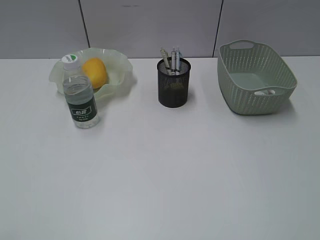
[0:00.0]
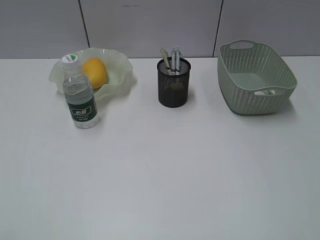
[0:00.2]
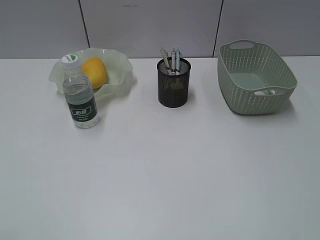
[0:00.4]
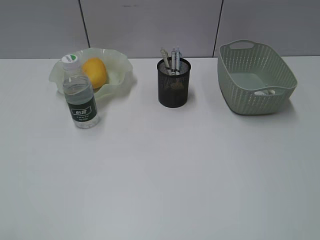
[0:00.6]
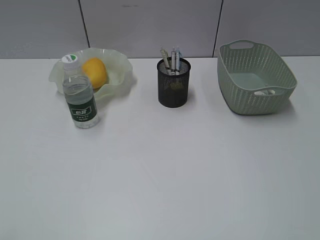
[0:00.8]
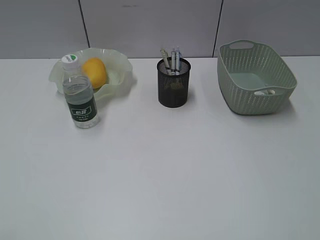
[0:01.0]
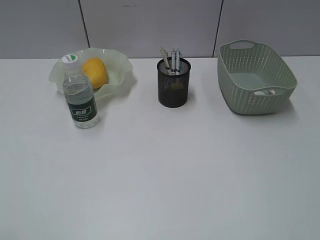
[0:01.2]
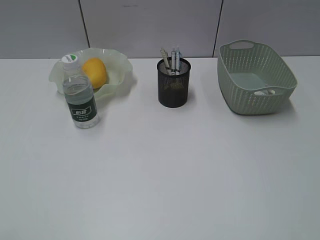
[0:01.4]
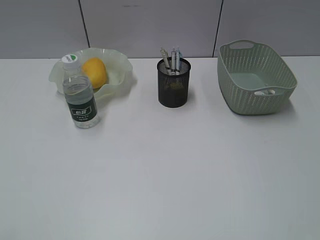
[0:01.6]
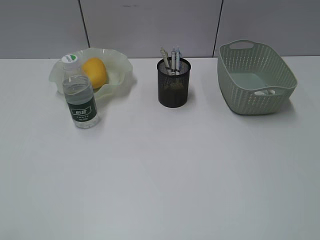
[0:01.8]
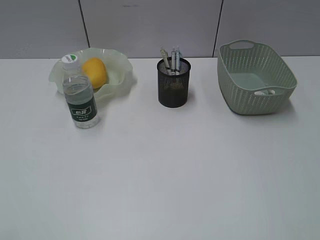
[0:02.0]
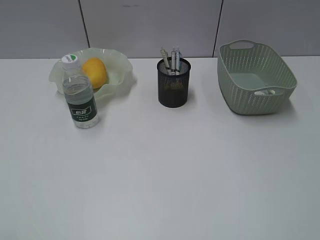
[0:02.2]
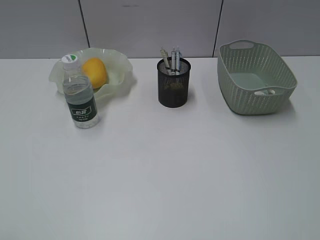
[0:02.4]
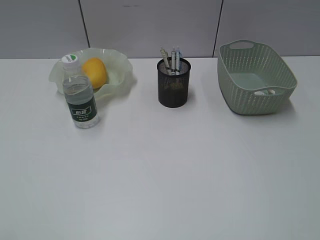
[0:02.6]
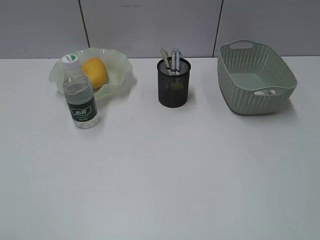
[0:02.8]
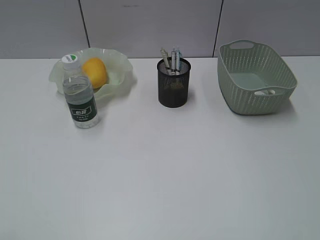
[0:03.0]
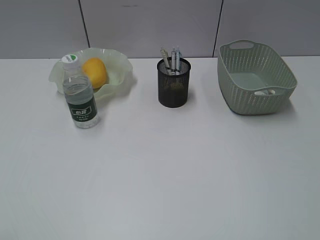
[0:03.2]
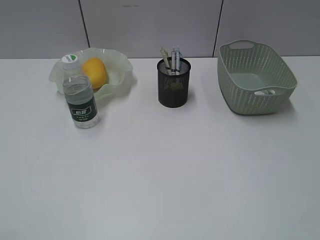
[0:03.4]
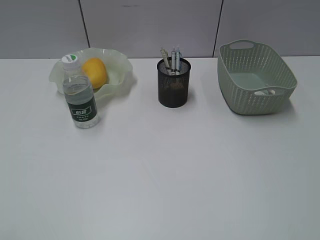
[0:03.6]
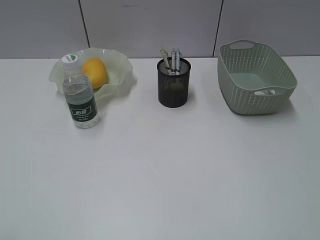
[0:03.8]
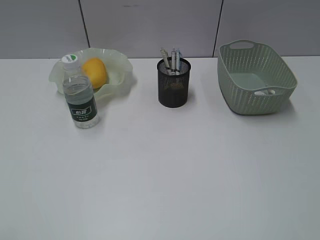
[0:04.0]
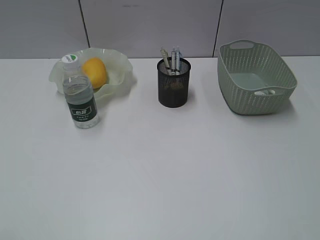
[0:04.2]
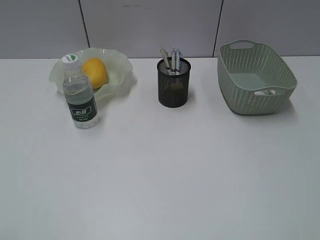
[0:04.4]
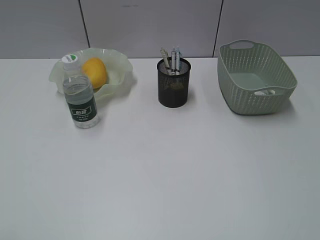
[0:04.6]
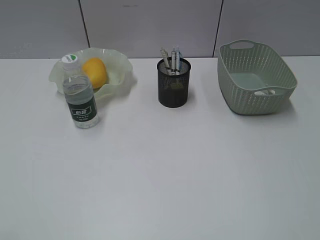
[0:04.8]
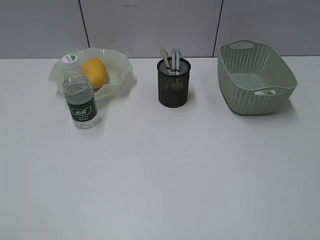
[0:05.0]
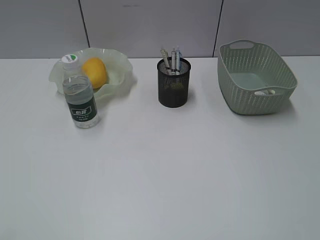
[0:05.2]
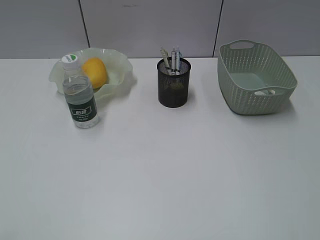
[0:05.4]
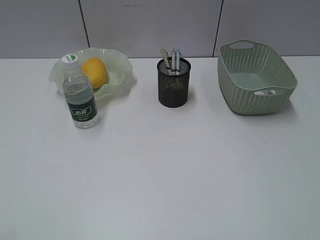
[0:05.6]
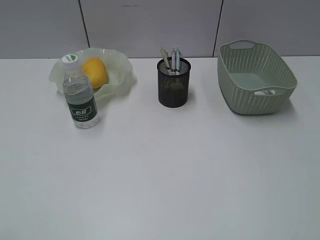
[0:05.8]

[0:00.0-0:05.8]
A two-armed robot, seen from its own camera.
0.0 to 5.8 s: Both grippers stay put.

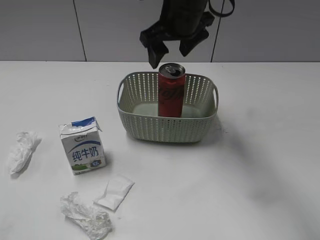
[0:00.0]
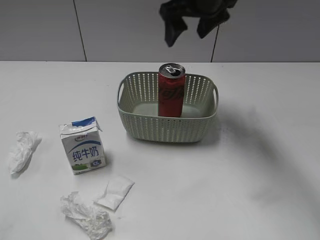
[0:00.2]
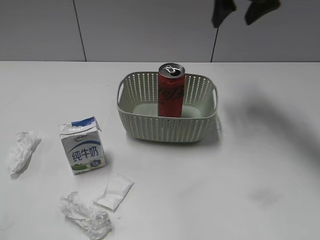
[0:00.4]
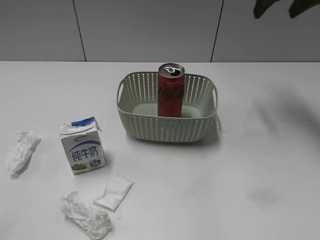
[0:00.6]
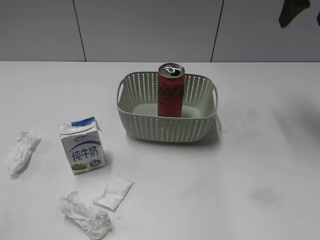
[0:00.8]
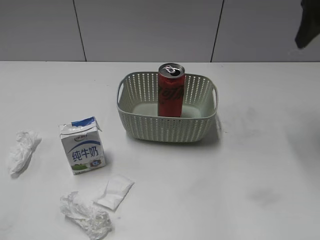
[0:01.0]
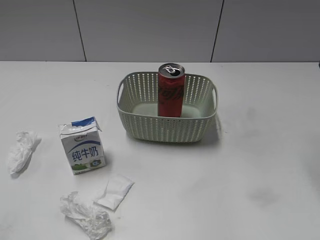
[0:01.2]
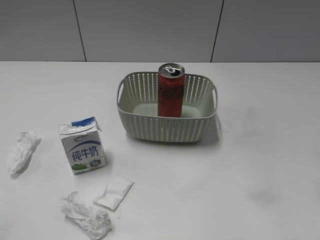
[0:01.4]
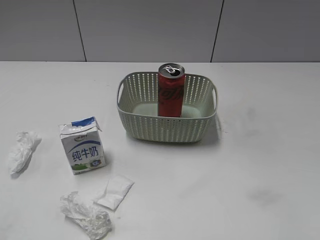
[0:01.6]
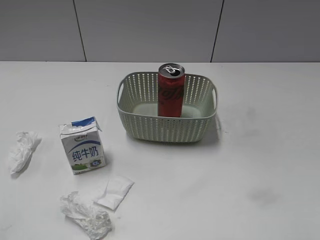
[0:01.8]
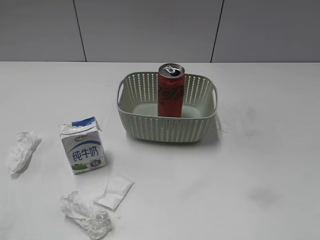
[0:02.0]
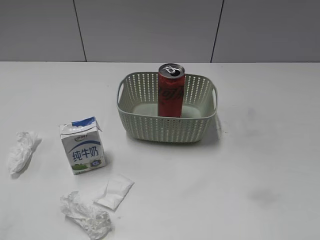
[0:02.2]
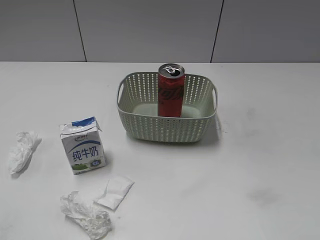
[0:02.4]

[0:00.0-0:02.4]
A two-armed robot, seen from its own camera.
0.0 to 1.2 s: The right gripper goes approximately 25 cm to the right and backward.

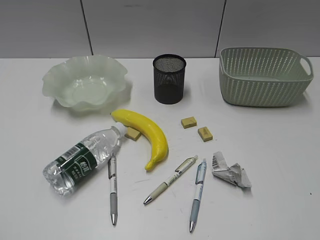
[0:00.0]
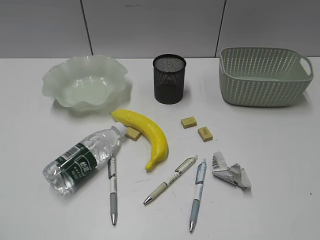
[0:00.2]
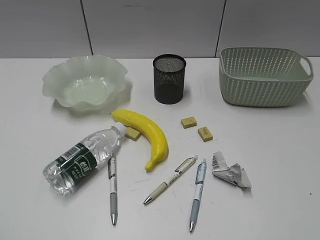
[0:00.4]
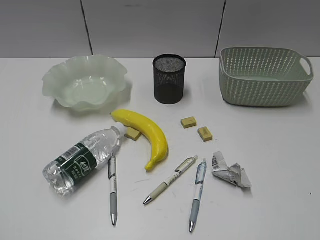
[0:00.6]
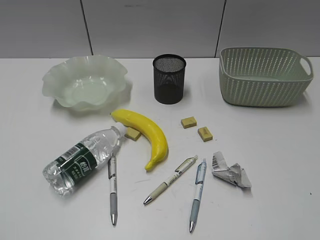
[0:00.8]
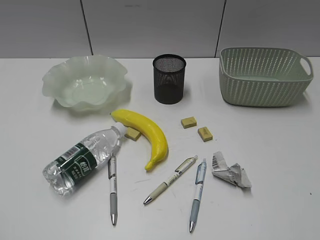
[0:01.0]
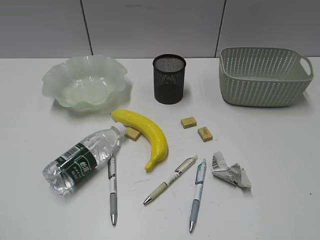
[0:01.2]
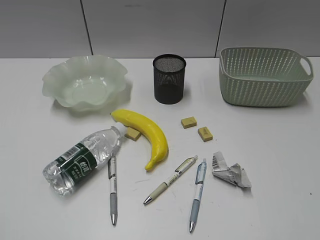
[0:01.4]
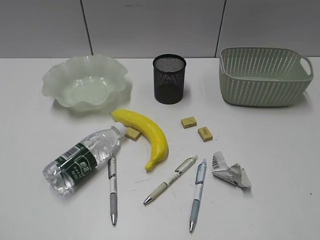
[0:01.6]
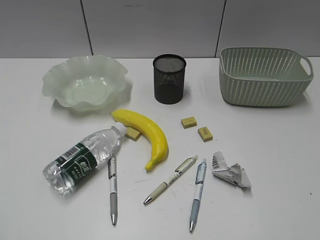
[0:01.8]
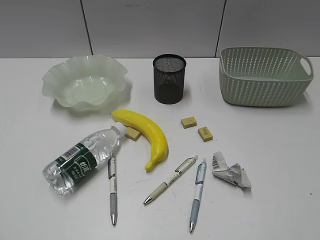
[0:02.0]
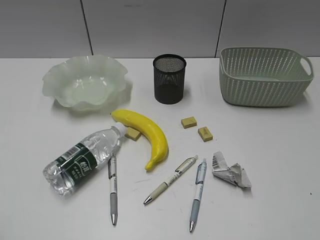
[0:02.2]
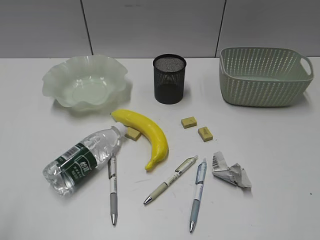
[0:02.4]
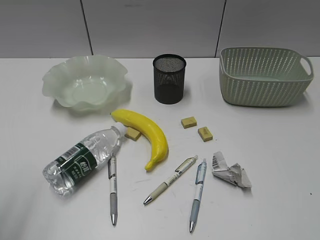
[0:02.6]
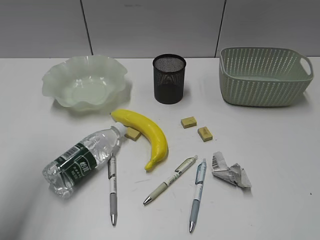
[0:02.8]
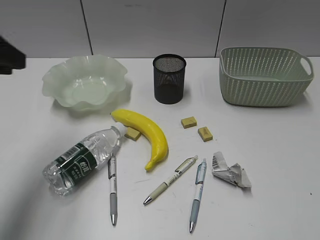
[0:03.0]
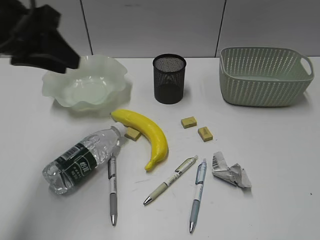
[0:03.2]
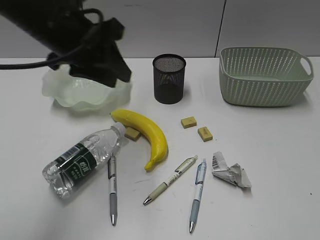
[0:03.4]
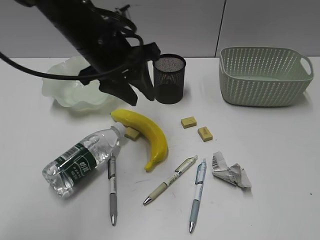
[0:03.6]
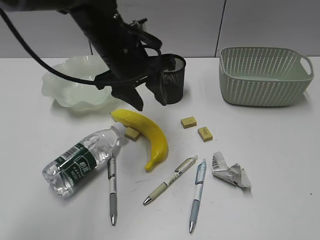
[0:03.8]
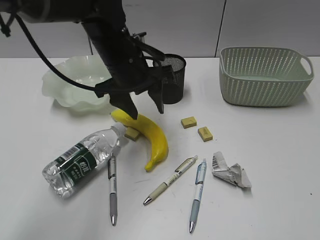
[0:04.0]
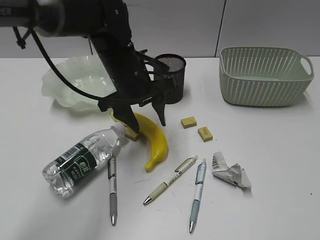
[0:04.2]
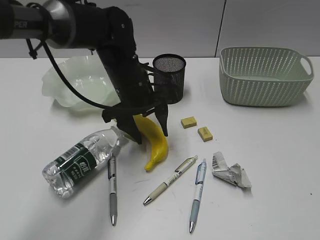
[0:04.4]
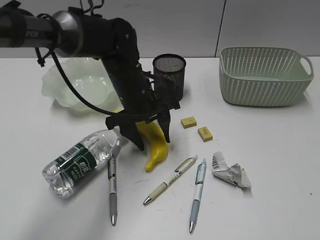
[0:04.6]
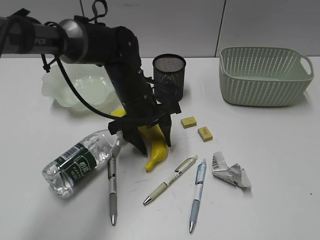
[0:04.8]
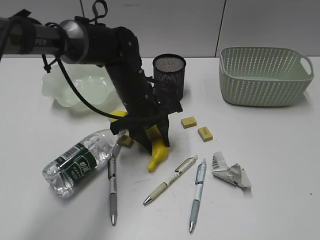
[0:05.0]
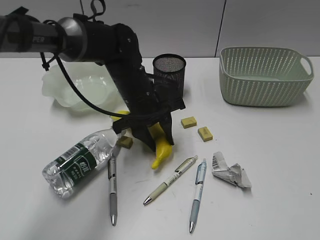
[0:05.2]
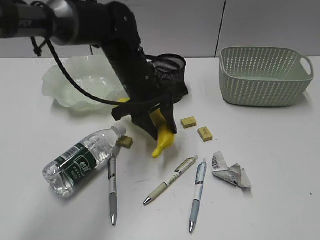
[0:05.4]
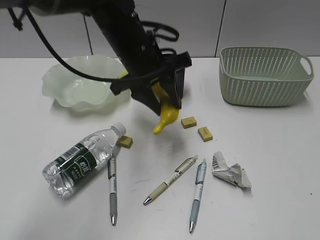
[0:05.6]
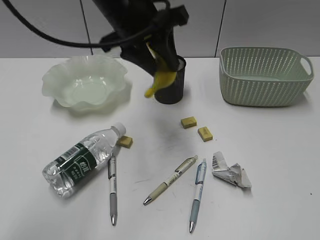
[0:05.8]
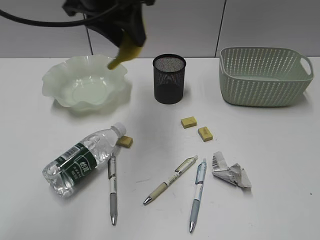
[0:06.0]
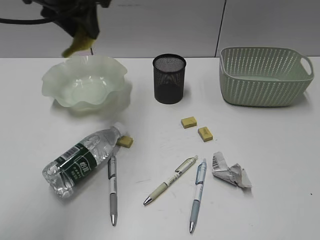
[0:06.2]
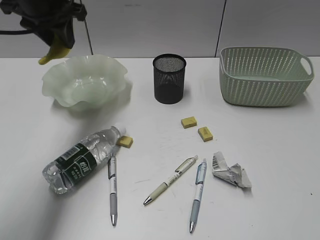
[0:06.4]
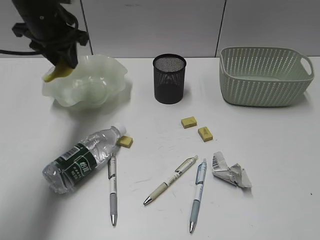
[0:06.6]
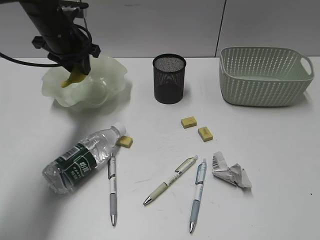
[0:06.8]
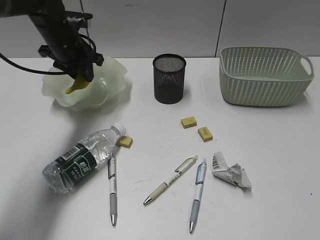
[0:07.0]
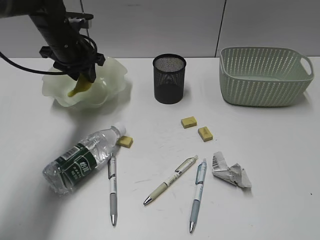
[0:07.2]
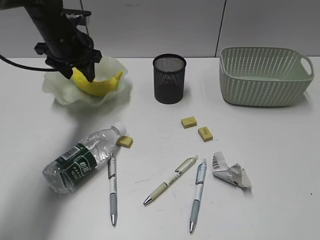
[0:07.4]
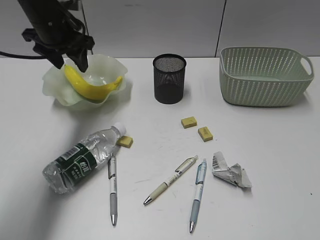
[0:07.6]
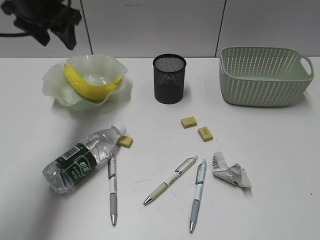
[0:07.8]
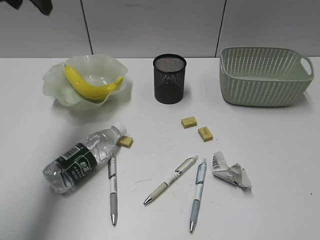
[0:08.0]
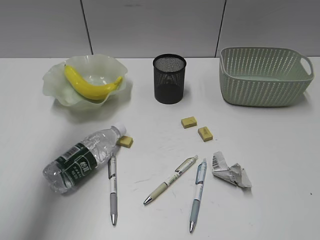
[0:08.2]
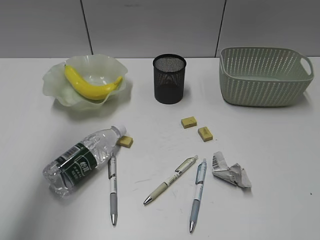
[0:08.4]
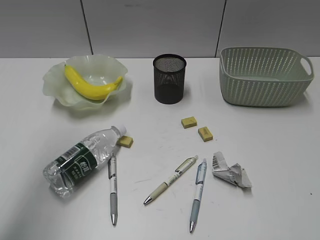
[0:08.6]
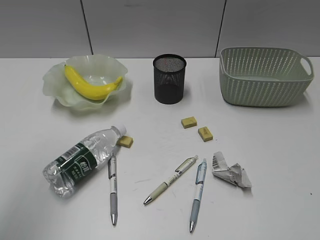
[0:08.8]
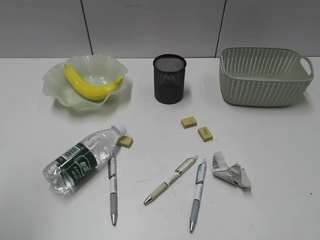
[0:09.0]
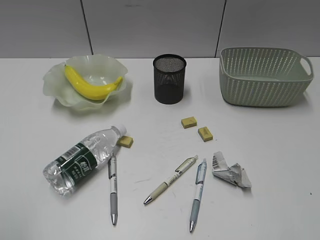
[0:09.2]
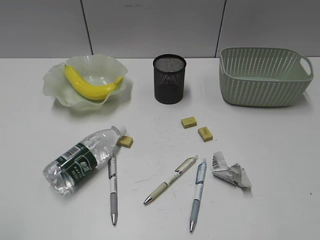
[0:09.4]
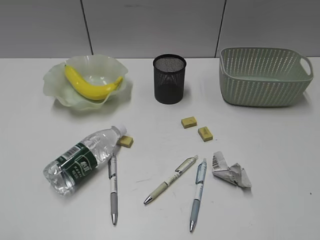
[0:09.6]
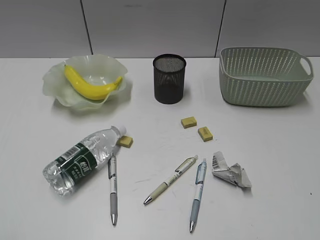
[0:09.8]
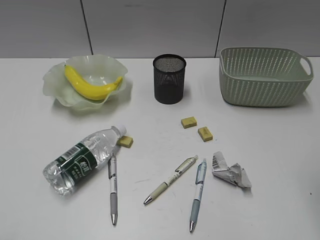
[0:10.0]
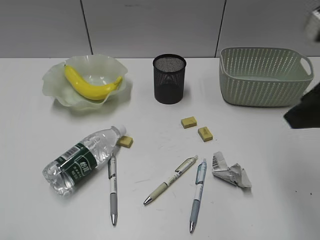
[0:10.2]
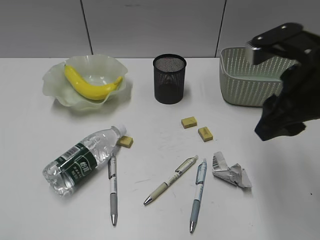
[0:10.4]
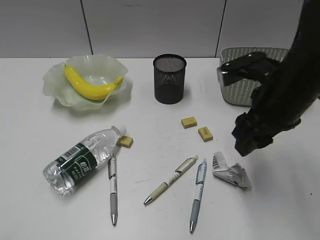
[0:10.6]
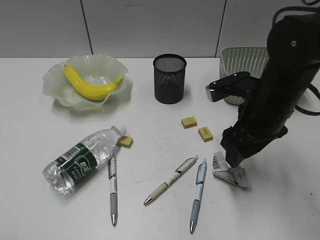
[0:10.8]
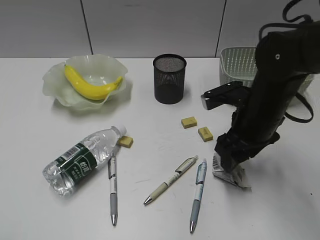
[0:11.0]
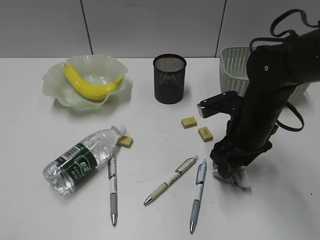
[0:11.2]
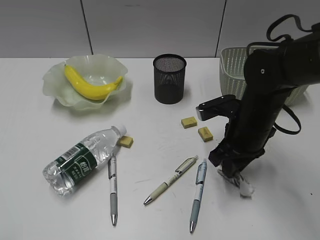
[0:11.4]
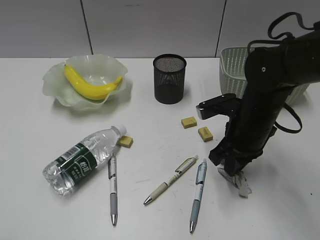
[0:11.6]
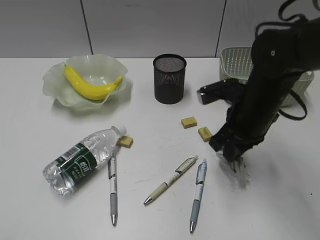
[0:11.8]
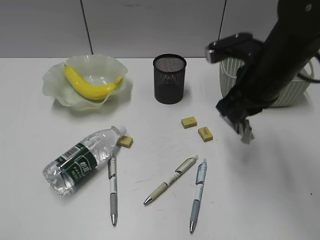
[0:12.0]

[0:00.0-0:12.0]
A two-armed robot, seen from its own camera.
Step, 2.2 to 4.8 s: Grasp the banana with left gripper.
Step, 5.0 to 7.4 s: Place the banana in the plate with left gripper.
Step, 7.6 to 11.6 s: Grasp the waste paper with right gripper.
1.6 to 3.0 s: The left gripper is displaced forward by approximately 25 cm.
3.0 to 4.4 s: The left gripper travels to the right, downward and forward by about 30 cm, and opens its fingers.
4.4 to 6.0 s: The left gripper shifts some 20 cm upward, and closes its fingers.
6.0 to 7.6 s: The left gripper travels to the left, forward and downward by about 20 cm, and opens its fingers.
7.6 to 9.0 s: The left gripper moves backward and upward, roughly 40 cm.
9.0 to 10.4 s: The right gripper travels forward and to the left by about 25 cm, while the left gripper is displaced downward and backward by roughly 15 cm.
10.4 to 12.0 s: The right gripper travels forward and downward by roughly 10 cm, and closes.

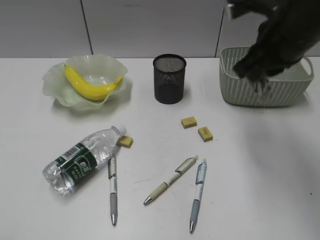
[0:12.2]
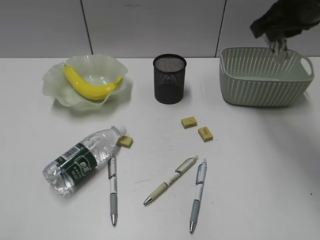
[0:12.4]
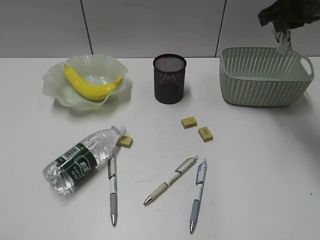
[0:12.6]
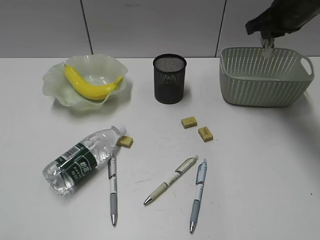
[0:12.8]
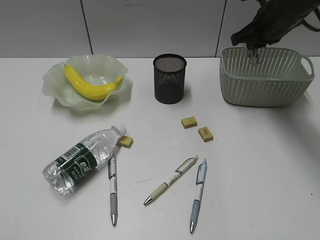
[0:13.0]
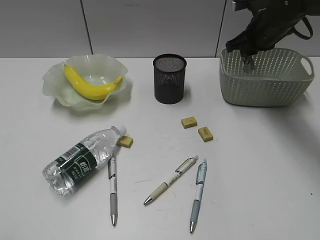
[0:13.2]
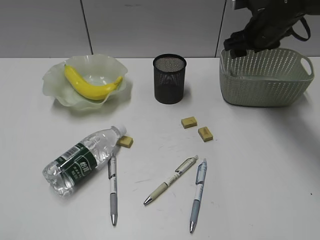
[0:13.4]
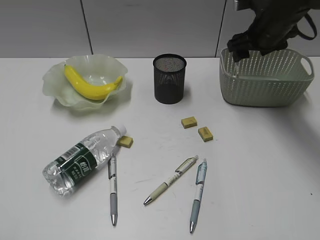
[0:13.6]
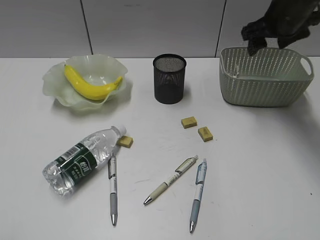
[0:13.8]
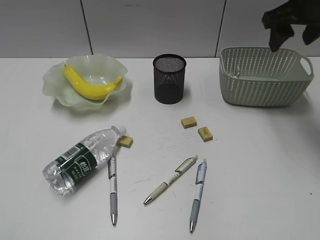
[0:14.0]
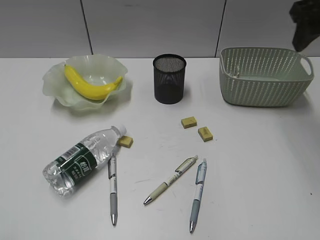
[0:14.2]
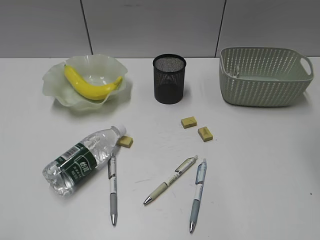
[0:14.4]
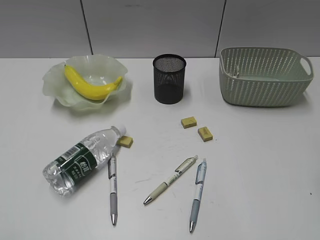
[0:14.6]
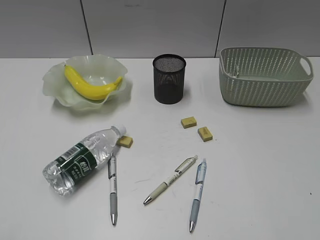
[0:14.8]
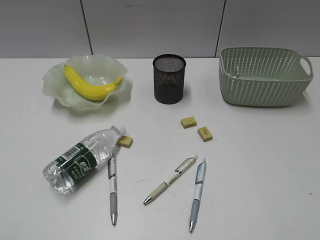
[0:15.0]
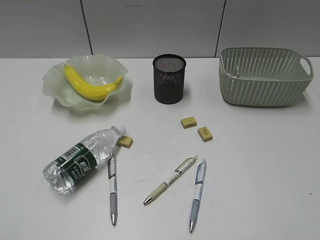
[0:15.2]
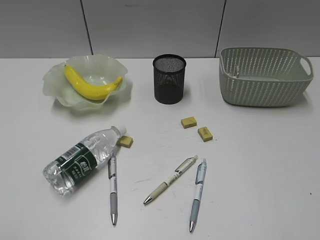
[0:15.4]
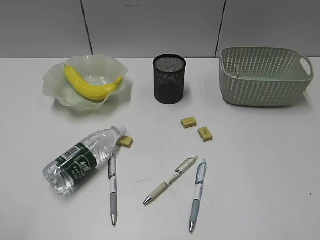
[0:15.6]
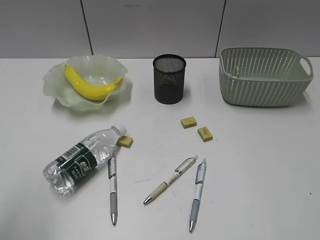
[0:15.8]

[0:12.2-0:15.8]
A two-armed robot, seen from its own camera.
Step, 12.2 to 13.4 s: Place the waste paper in the basket with right gripper.
12.2 to 14.0 s: The right gripper is displaced forward and to the right by approximately 10 cm, and opens.
14.0 to 15.8 s: The right gripper heads backward, covering some 40 cm. Meanwhile the left gripper travels forward by approximately 10 cm.
